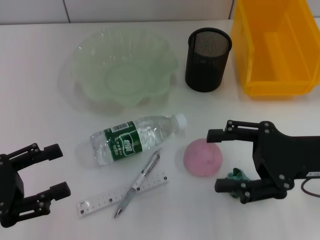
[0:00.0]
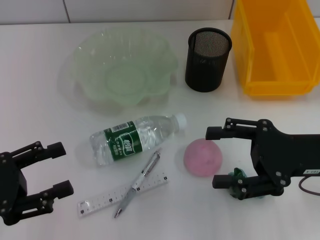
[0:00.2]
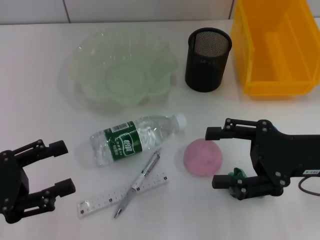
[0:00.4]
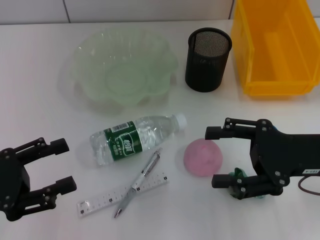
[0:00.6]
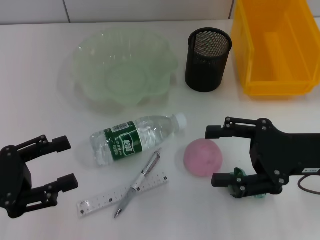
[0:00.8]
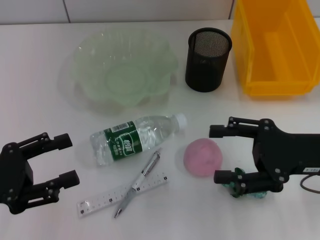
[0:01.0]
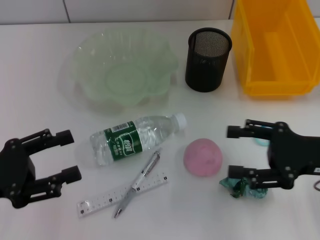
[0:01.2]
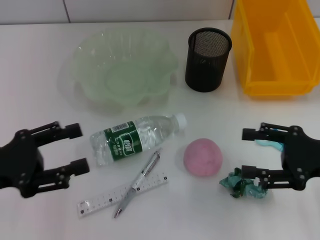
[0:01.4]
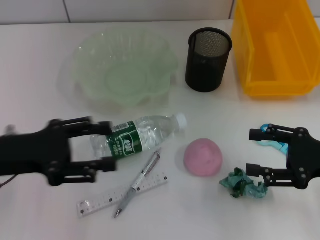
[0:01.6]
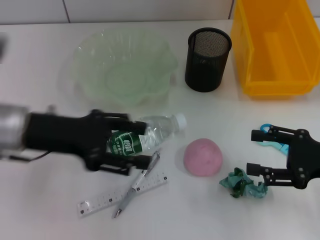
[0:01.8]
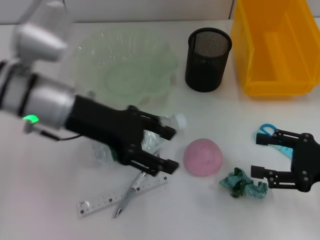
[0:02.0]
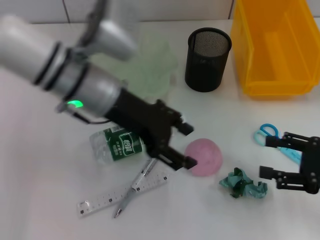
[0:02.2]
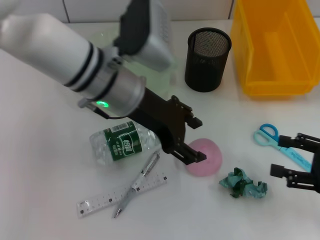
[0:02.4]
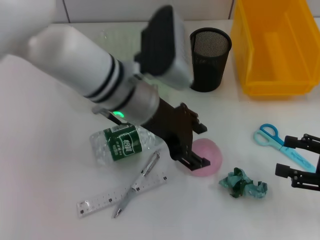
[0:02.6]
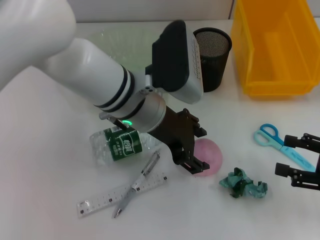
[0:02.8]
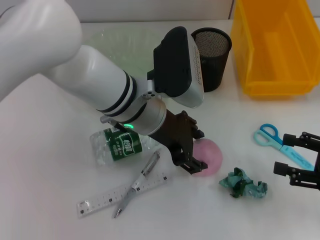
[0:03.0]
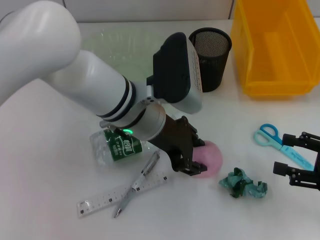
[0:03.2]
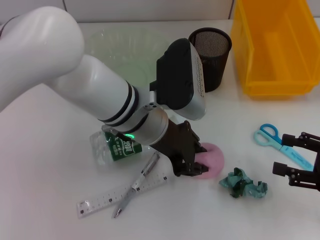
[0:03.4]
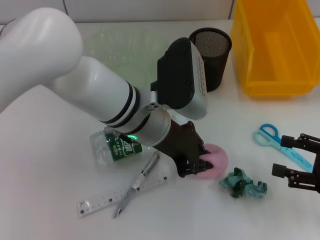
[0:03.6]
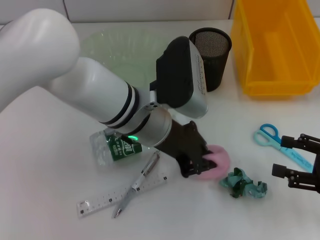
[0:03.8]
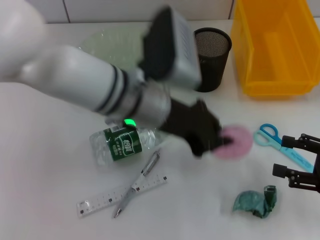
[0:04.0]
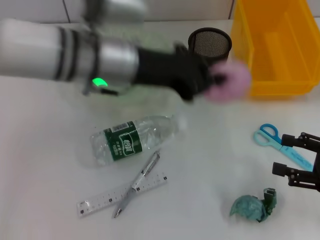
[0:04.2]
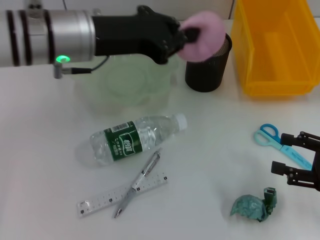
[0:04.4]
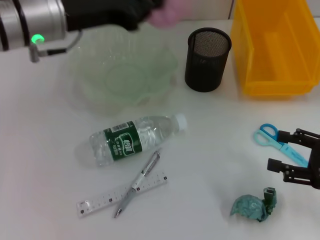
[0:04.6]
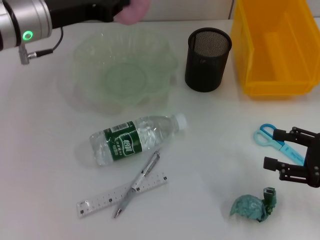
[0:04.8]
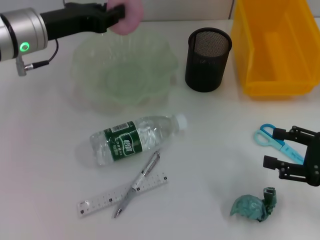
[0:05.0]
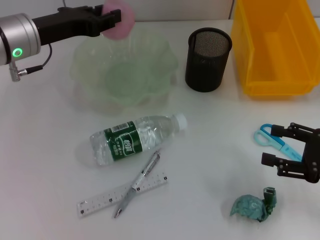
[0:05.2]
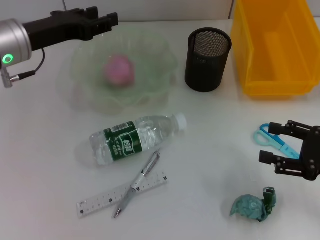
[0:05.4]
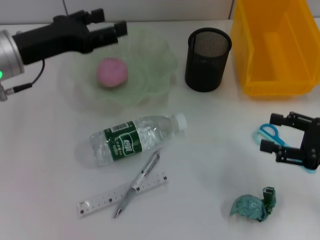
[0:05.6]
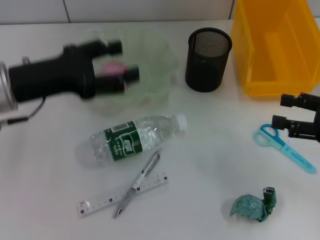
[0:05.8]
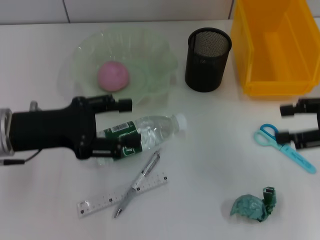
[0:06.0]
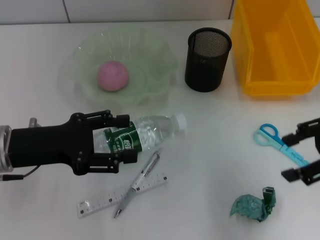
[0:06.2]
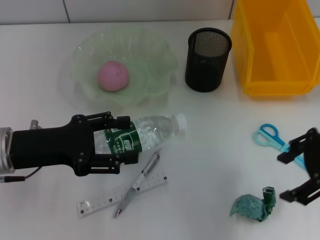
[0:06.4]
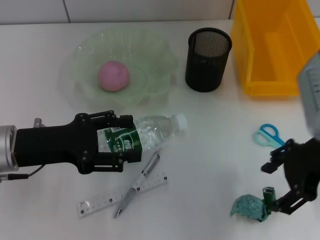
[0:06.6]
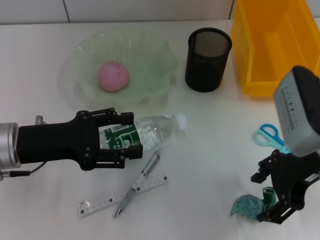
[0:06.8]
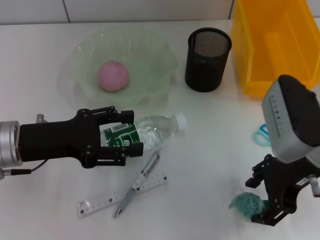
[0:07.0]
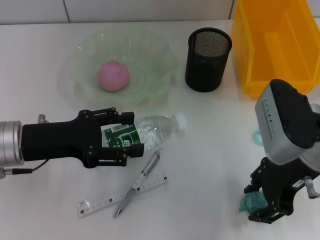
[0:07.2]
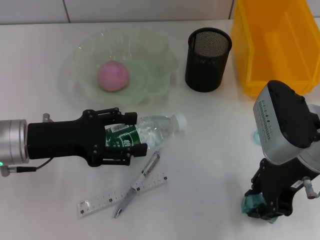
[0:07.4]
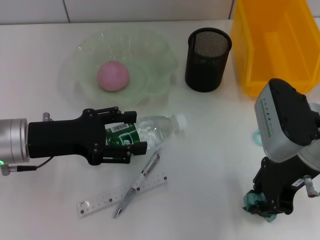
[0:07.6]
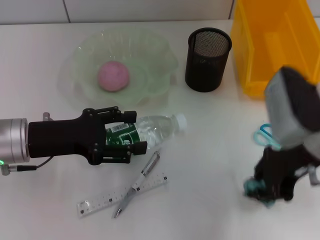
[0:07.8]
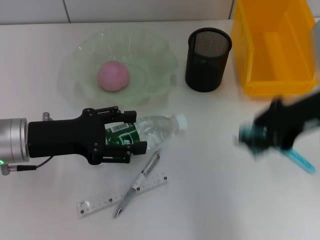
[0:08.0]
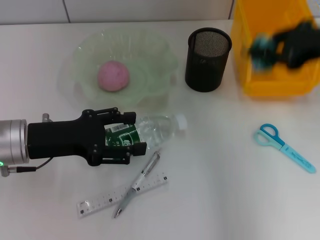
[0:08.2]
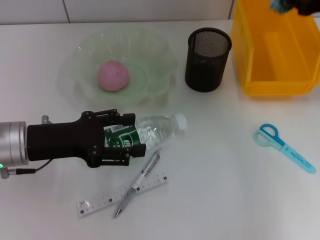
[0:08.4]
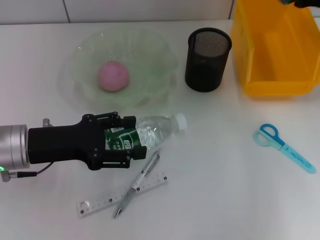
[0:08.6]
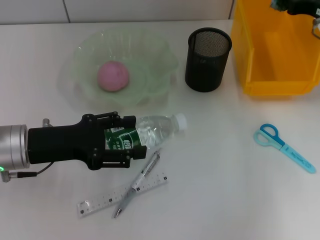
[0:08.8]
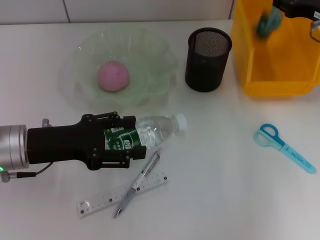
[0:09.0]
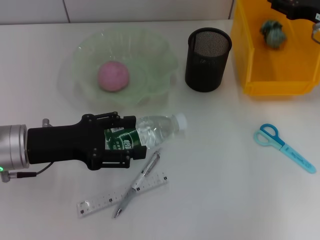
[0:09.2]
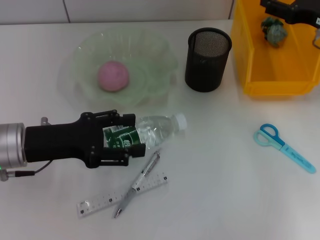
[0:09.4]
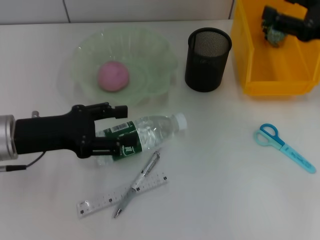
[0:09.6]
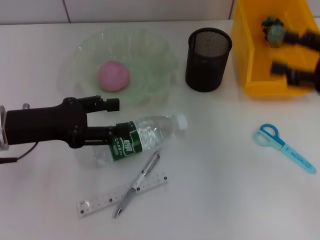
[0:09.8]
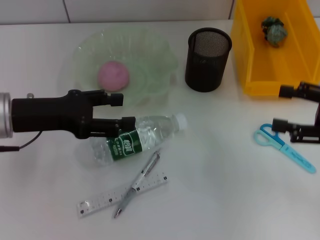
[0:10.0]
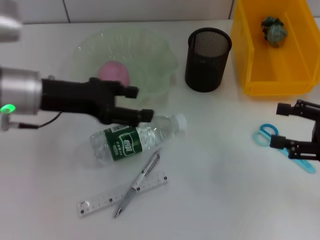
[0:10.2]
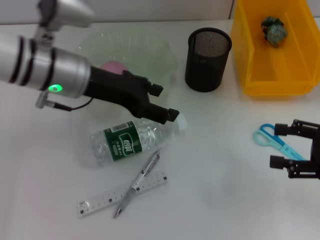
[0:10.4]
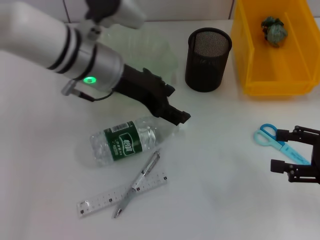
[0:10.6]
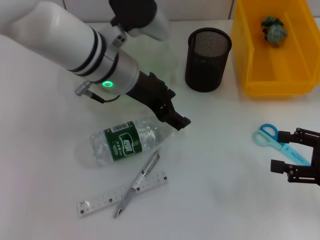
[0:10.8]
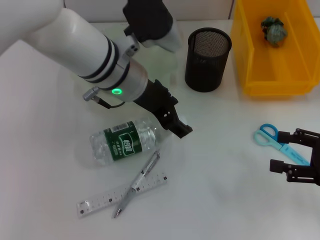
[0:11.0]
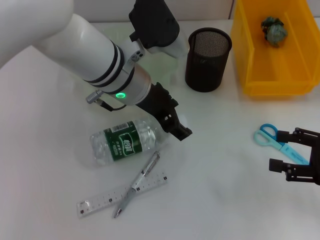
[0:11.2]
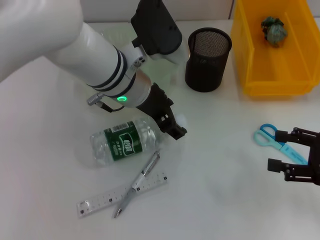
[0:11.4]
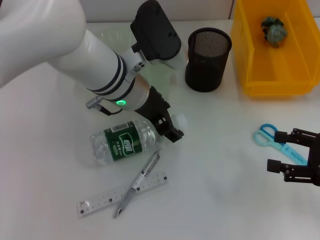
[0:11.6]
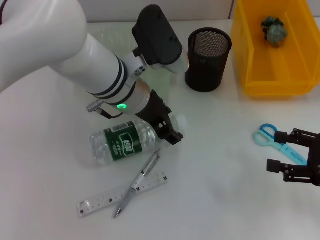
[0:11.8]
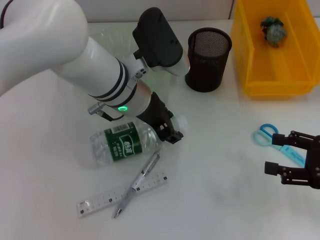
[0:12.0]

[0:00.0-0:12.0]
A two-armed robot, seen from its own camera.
Step, 0.0 to 3.4 s: Grab the peach with the left hand.
Step, 3.6 to 5.2 s: Place the peach into the fruit bowl with the left hand.
Step, 5.4 to 7.4 s: Grab the plastic with the right hand.
Step, 7.8 to 9.0 s: Place the plastic into the trash can with the right hand.
0.0 to 1.6 s: The right gripper shifts about 5 cm to the right. Meanwhile the left gripper travels forward by approximately 10 cm.
1.6 to 3.0 s: The left gripper moves to the right, some 20 cm.
3.0 to 4.4 s: The left gripper travels to the left and upward by roughly 10 cm, and closes its fingers.
4.4 to 6.0 s: The left gripper goes about 15 cm to the left, downward and backward, and opens up. The right gripper is displaced upward and forward by approximately 10 cm.
6.0 to 7.6 s: The right gripper is displaced to the left by about 15 cm, and closes its fingers.
7.6 to 9.0 s: The right gripper goes some 15 cm forward and to the right.
9.0 to 10.4 s: The left gripper goes approximately 15 cm to the right, forward and upward; the right gripper moves backward, about 15 cm, and opens up.
10.4 to 12.0 s: The left gripper moves to the right, roughly 10 cm.

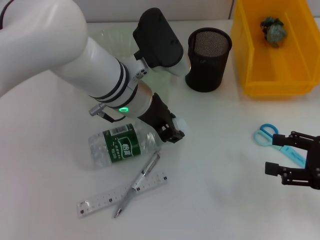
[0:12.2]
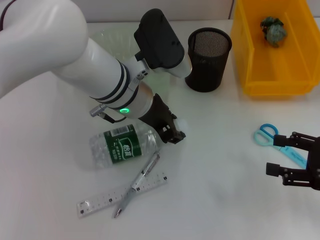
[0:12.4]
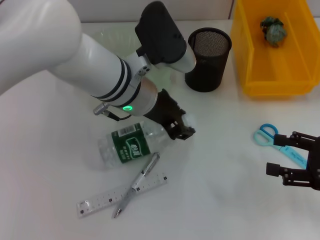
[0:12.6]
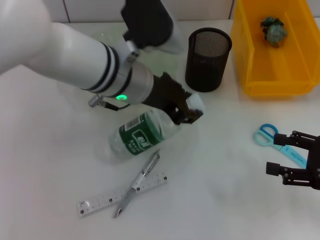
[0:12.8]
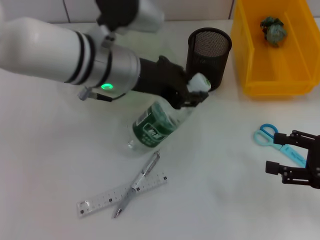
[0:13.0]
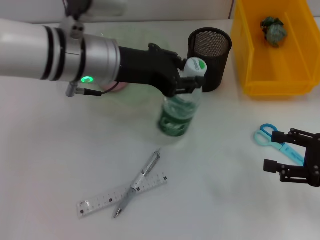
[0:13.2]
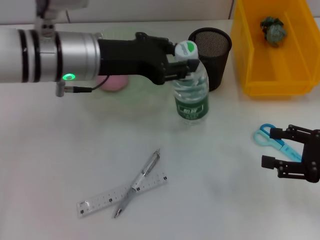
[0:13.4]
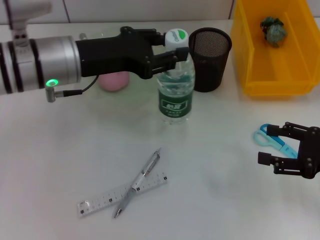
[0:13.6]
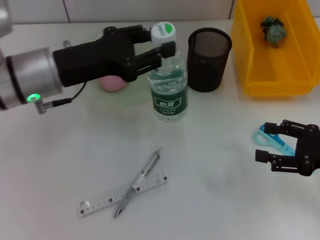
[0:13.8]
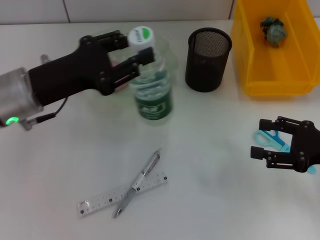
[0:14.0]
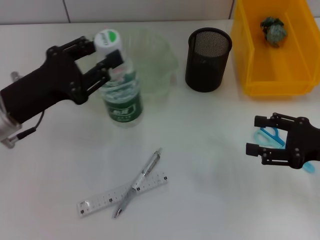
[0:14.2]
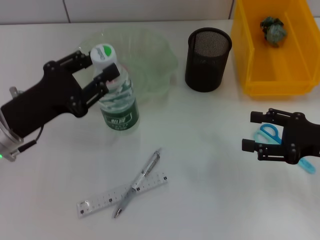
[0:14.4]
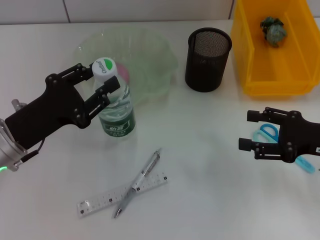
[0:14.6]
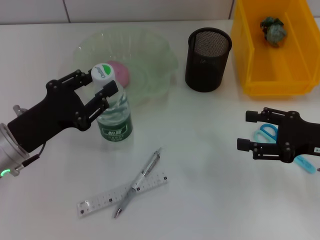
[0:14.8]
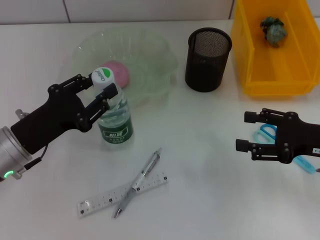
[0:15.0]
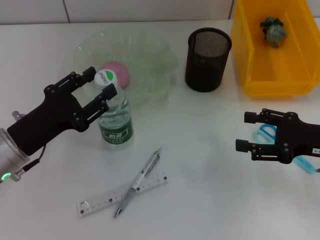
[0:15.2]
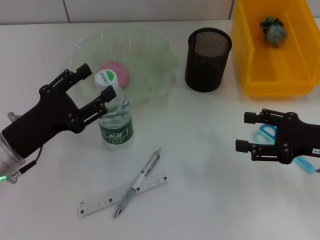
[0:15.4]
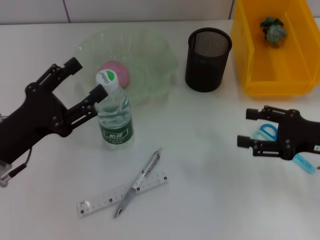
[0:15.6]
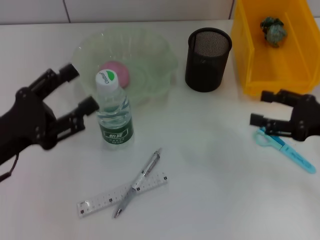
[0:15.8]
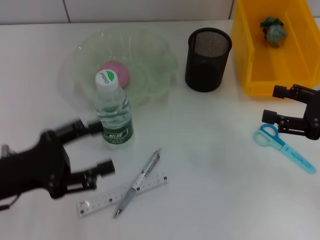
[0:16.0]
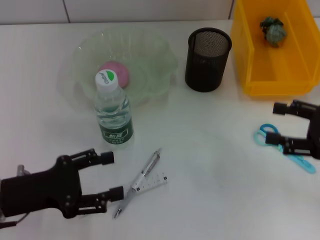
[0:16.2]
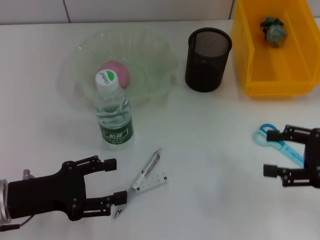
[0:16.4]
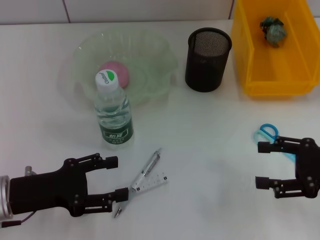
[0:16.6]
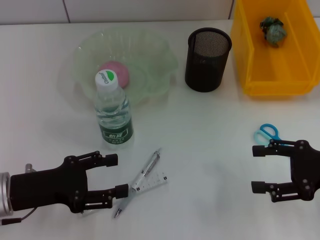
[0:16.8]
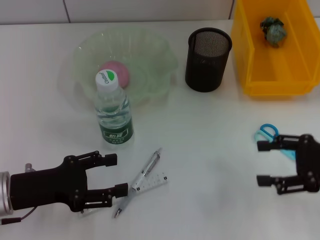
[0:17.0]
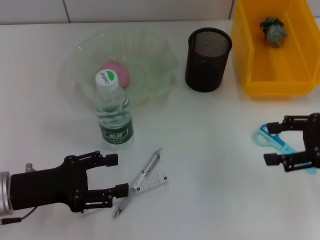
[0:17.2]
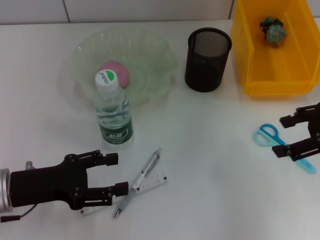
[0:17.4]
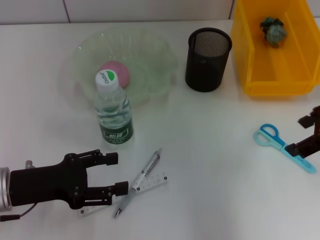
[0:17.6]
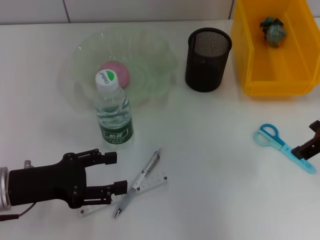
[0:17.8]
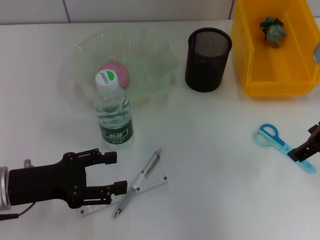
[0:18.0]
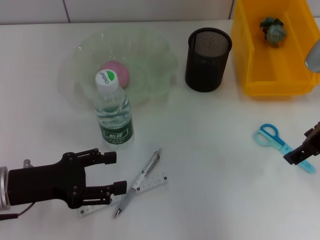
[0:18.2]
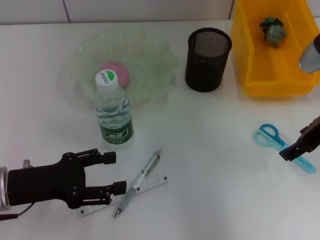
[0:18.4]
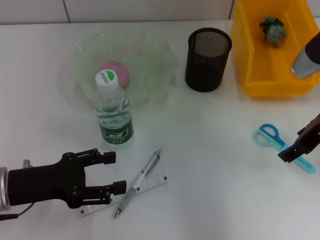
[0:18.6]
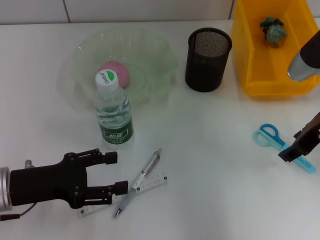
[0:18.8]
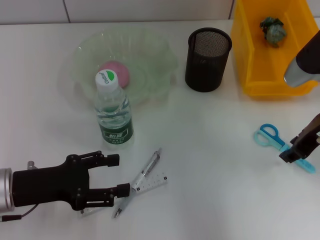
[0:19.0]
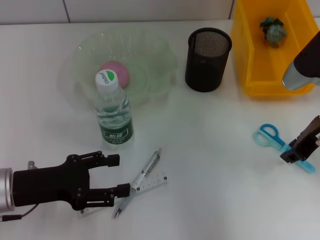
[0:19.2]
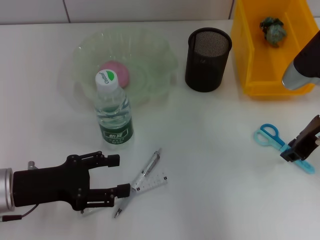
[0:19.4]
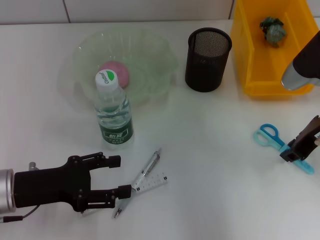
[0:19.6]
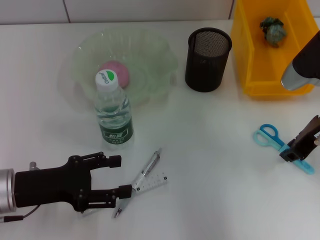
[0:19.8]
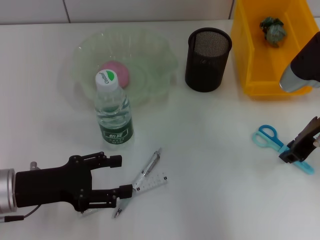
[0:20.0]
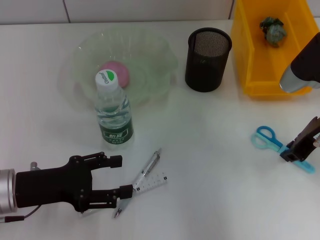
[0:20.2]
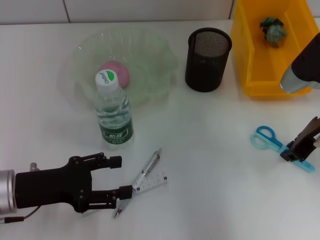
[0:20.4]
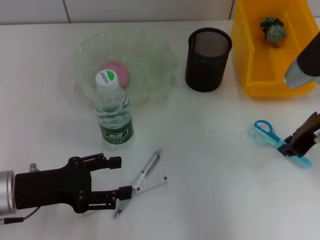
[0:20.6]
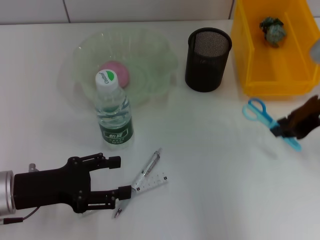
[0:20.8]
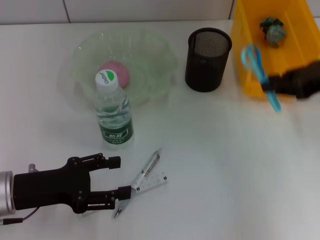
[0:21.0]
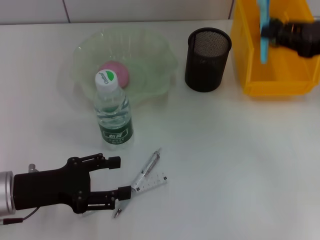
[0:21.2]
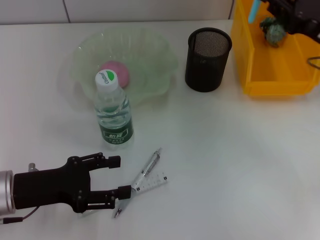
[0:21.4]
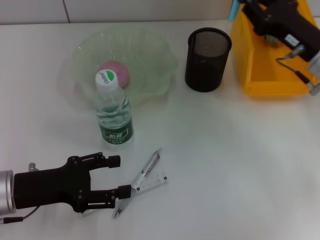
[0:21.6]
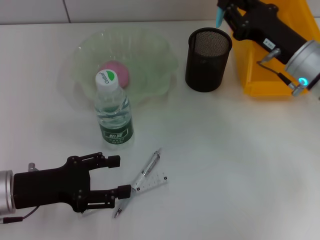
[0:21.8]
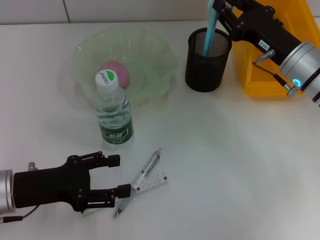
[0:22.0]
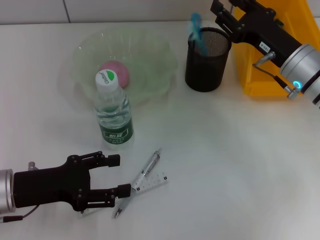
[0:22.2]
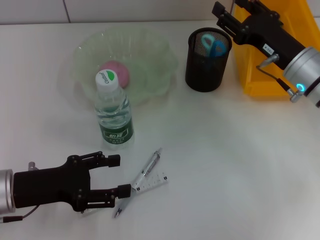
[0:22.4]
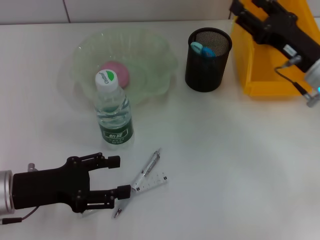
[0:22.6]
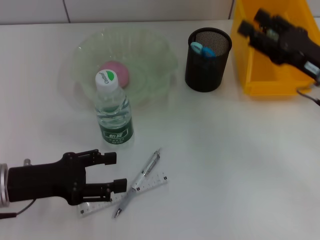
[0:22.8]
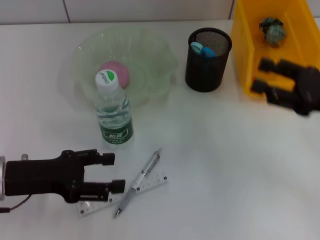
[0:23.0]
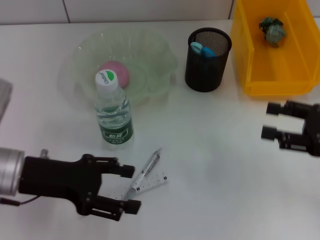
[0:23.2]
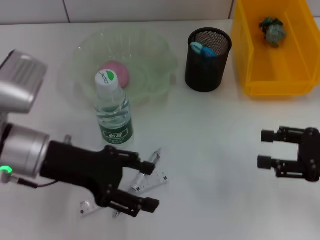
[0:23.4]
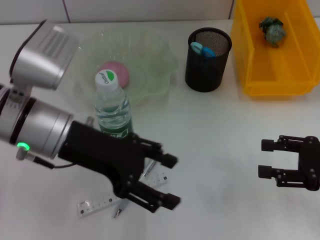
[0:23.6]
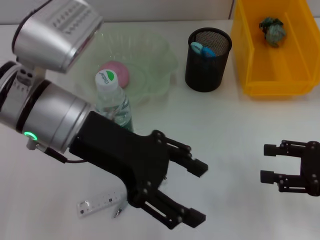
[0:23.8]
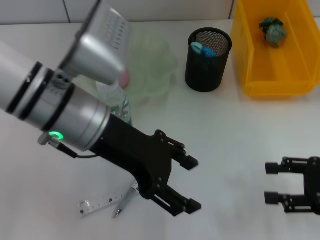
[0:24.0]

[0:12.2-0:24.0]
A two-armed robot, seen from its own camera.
Step, 12.4 to 15.0 s: Place the water bottle on the table with the left hand.
Step, 15.2 to 20.4 s: Grab the blue scissors with the right hand.
Step, 20.6 to 22.2 s: Place the blue scissors into the pen holder with the right hand.
12.2 to 13.6 s: The left gripper travels to the left by roughly 10 cm.
13.6 to 15.2 s: The left gripper shifts some 15 cm downward, backward and to the left.
15.2 to 16.6 s: The left gripper opens.
16.6 to 18.2 s: The right gripper moves upward, forward and to the left, roughly 15 cm.
18.2 to 19.6 s: The right gripper closes its fingers.
19.6 to 21.0 s: The right gripper goes some 5 cm to the right.
21.0 to 22.6 s: The right gripper is displaced downward by roughly 10 cm, and opens.
22.6 to 24.0 s: The left gripper is displaced to the right, upward and forward by some 20 cm. The right gripper goes about 15 cm backward and to the right.
